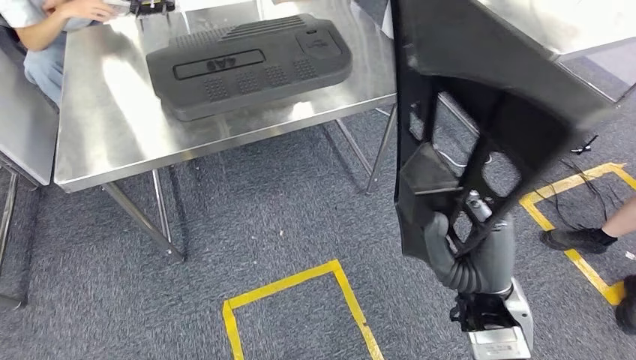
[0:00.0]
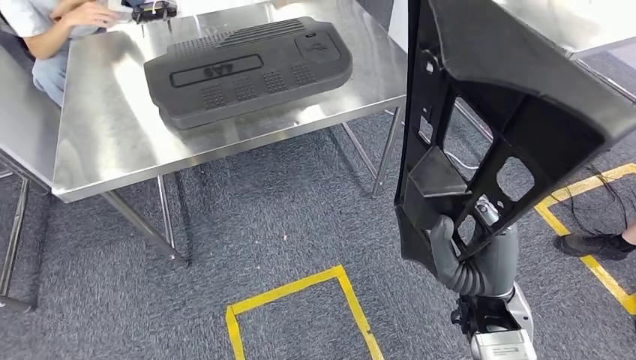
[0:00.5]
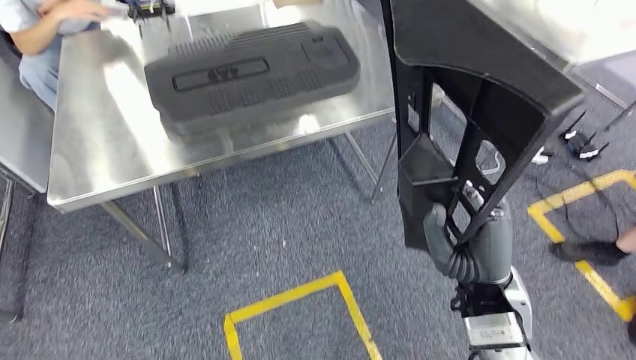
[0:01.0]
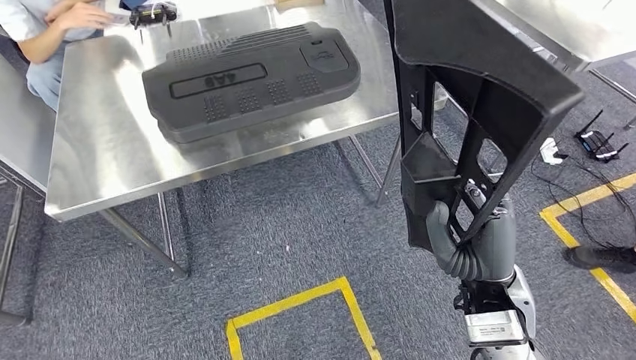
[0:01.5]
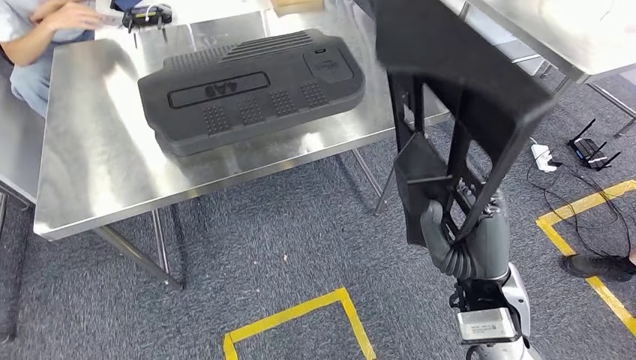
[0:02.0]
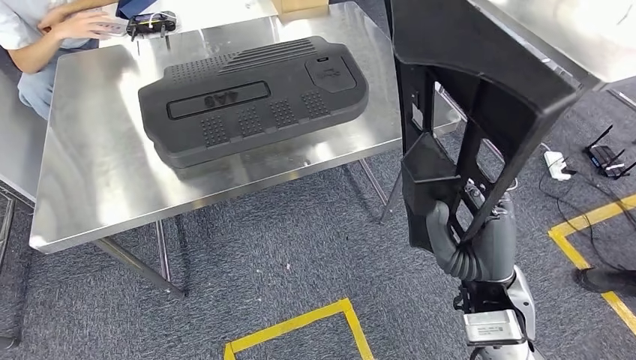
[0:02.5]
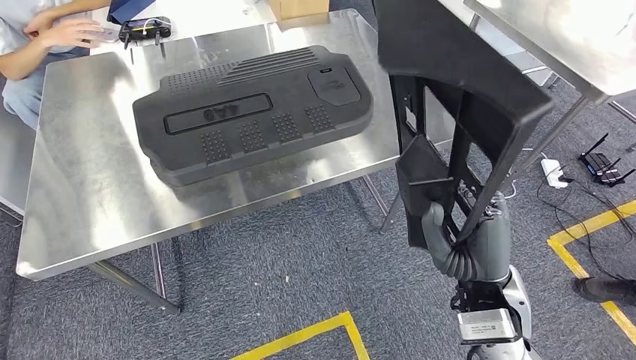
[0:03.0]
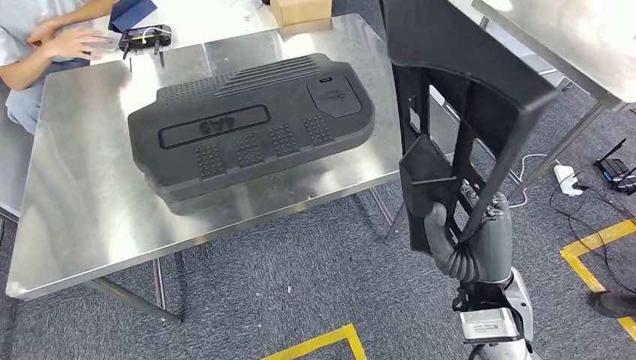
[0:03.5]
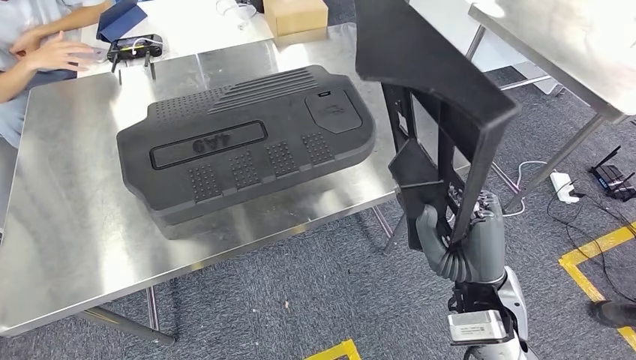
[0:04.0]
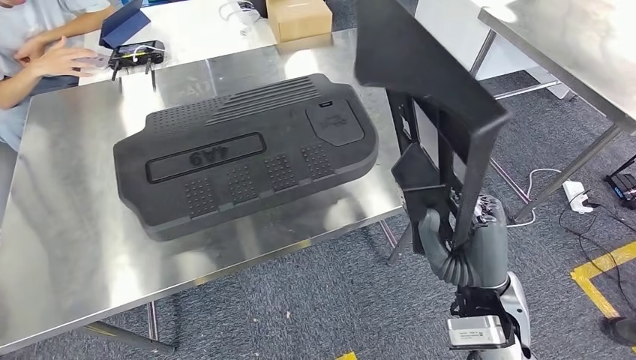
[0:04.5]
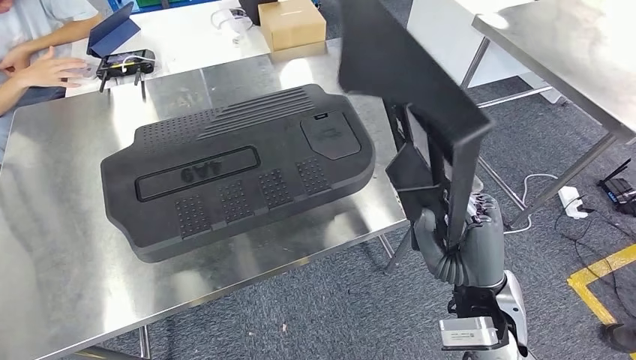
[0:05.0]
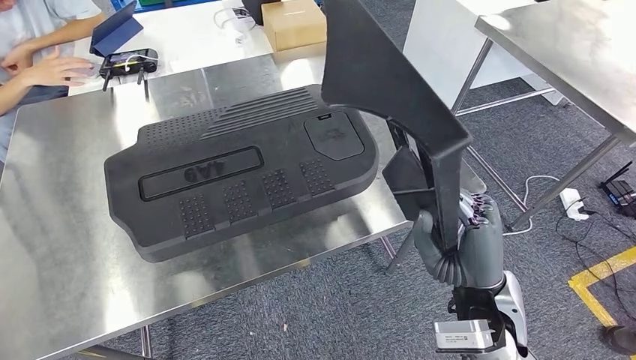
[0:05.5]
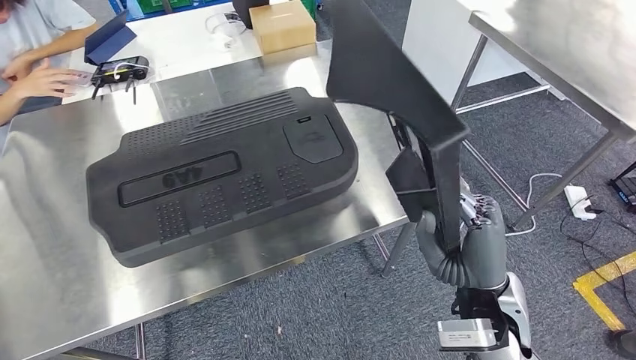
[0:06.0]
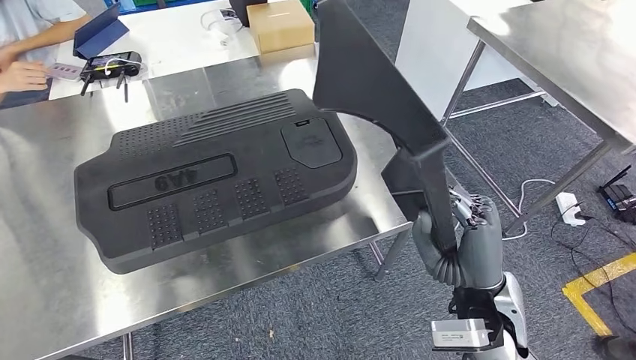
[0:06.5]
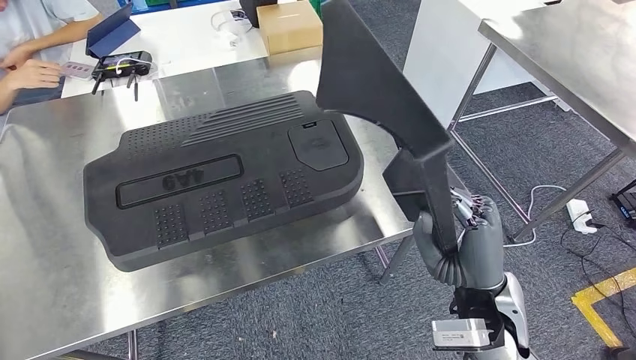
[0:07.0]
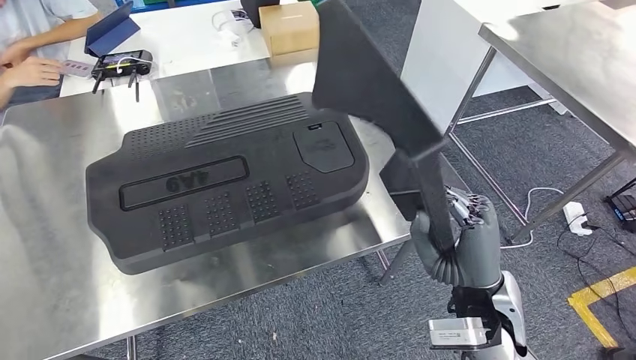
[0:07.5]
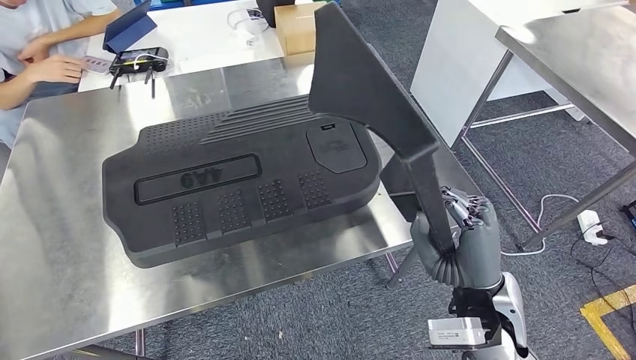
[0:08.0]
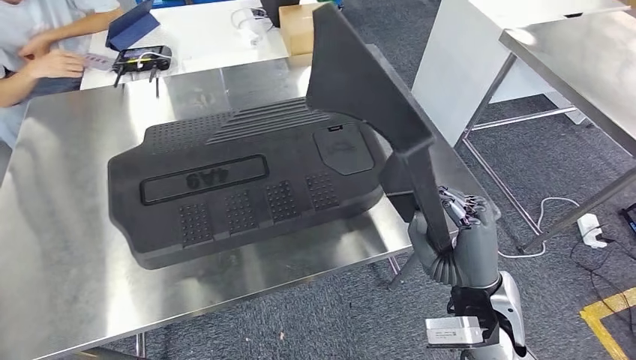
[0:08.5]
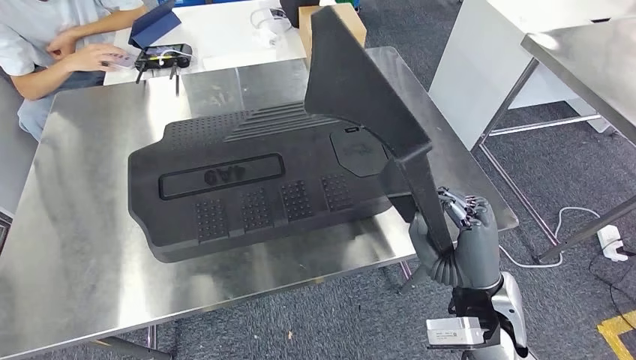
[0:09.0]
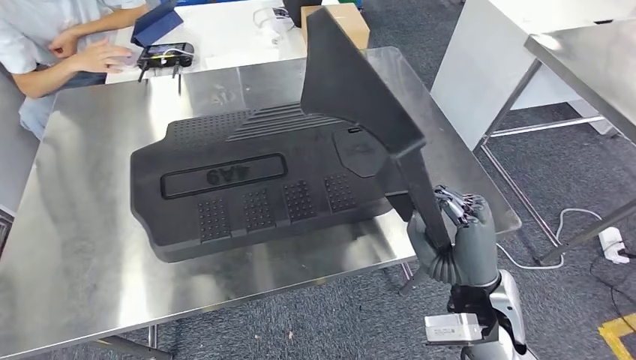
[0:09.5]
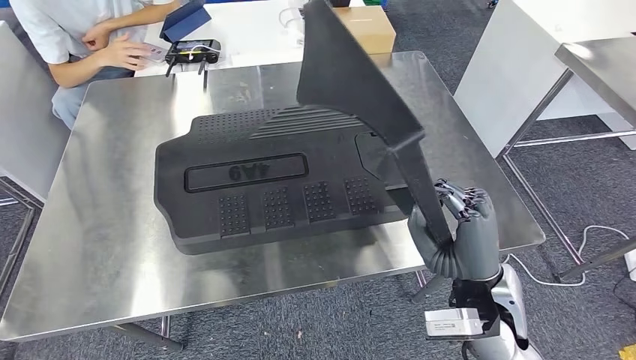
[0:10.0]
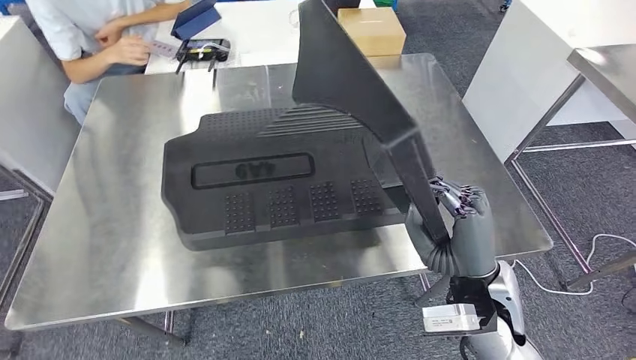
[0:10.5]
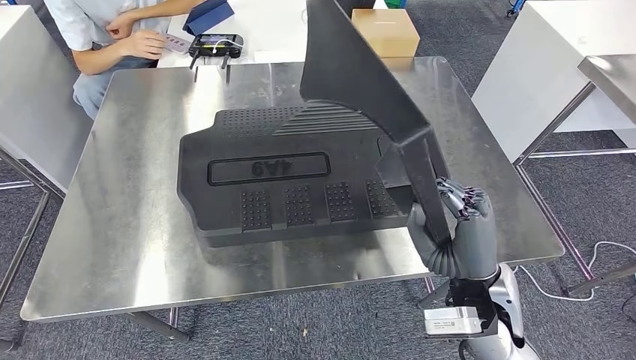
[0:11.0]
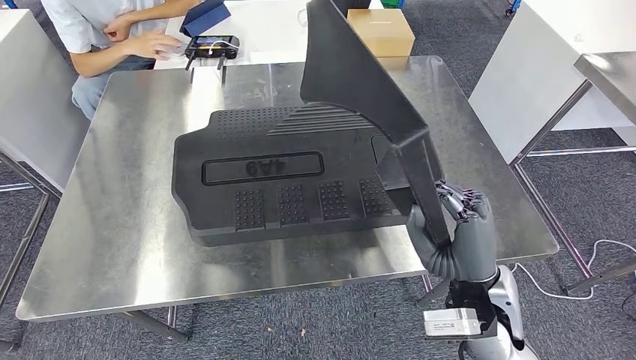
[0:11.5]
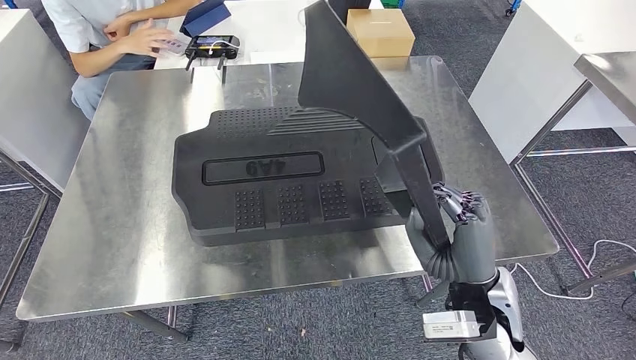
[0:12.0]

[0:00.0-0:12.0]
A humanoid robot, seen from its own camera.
Step, 0:00.0 to 0:08.5: Move the large material to the workbench.

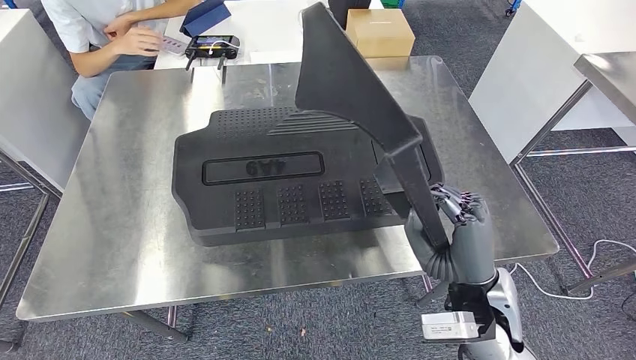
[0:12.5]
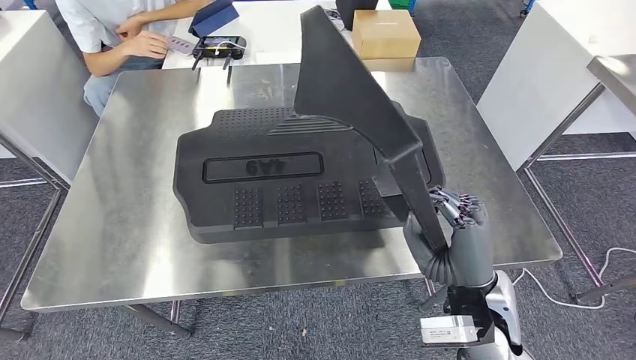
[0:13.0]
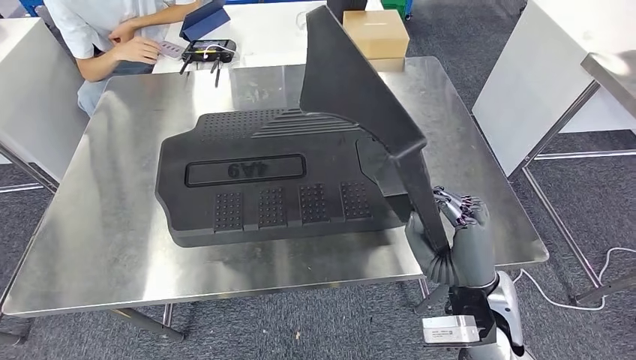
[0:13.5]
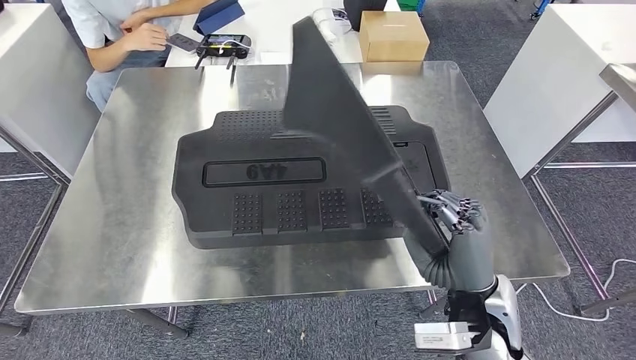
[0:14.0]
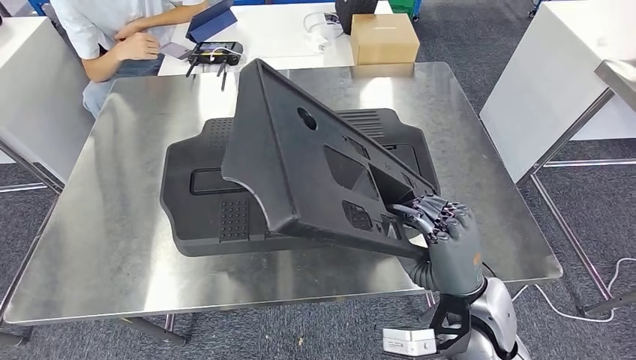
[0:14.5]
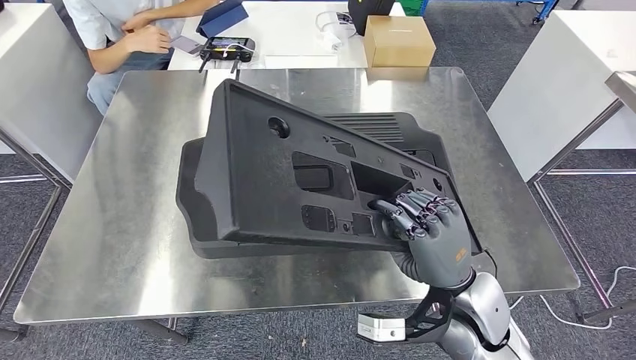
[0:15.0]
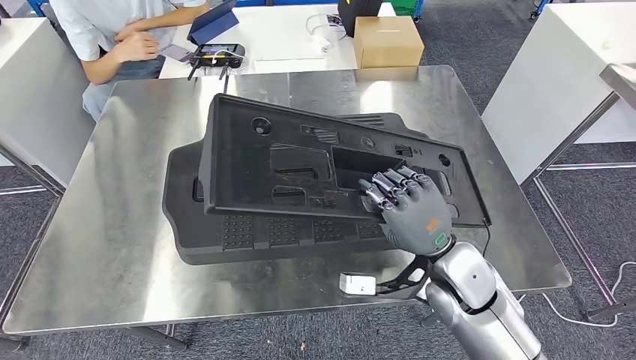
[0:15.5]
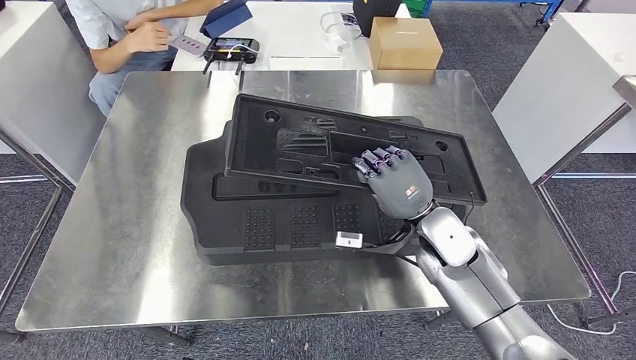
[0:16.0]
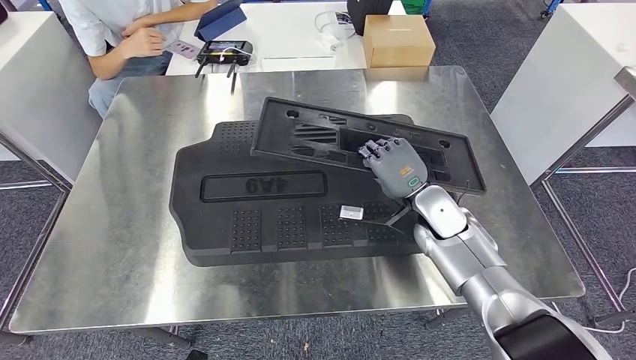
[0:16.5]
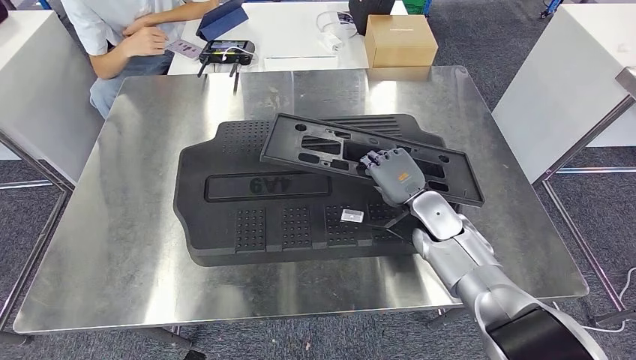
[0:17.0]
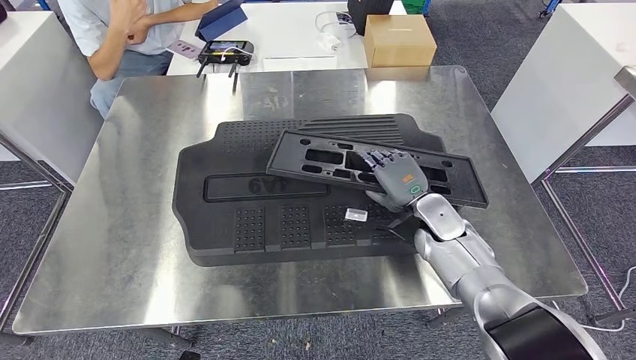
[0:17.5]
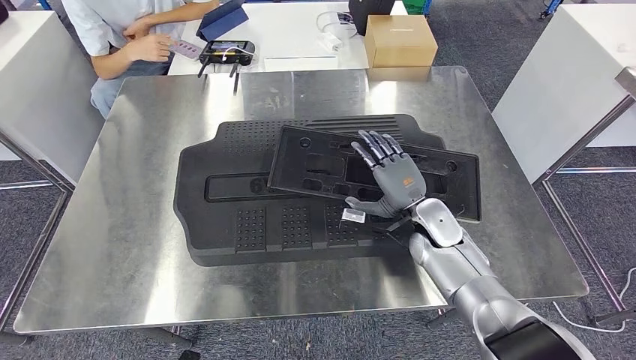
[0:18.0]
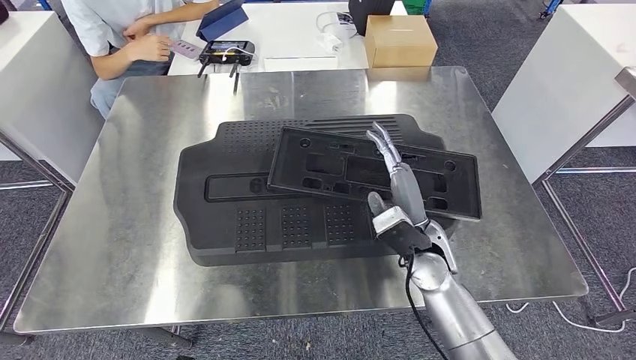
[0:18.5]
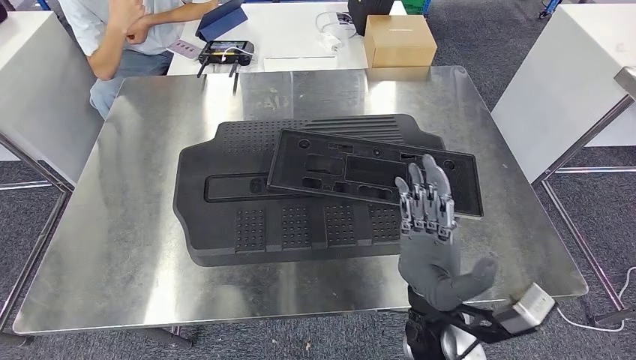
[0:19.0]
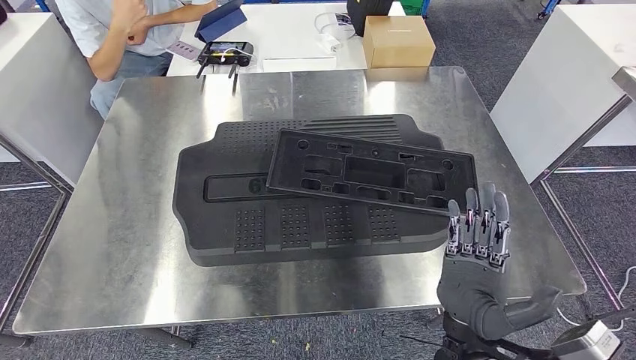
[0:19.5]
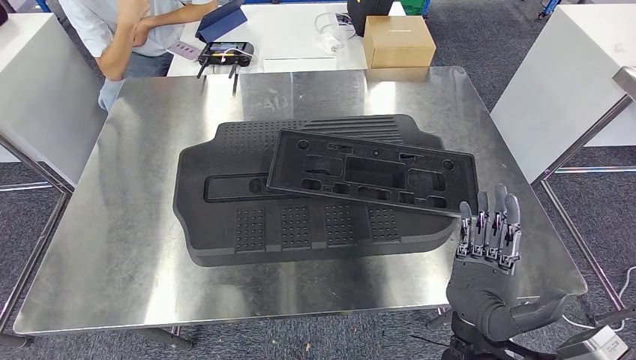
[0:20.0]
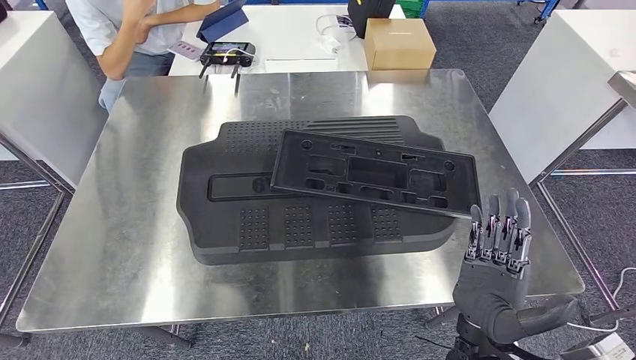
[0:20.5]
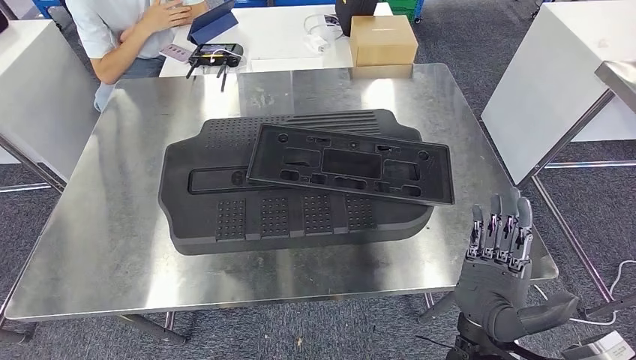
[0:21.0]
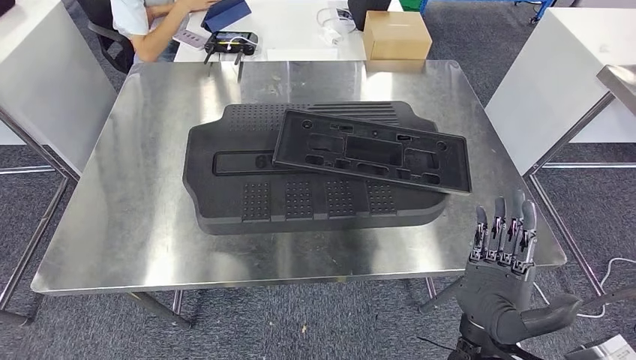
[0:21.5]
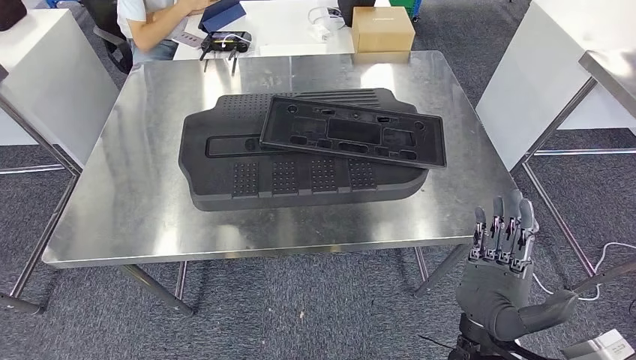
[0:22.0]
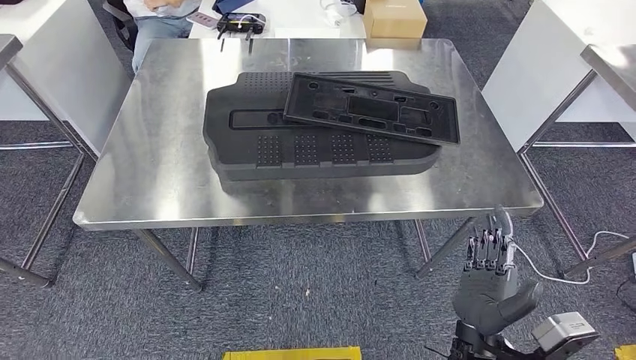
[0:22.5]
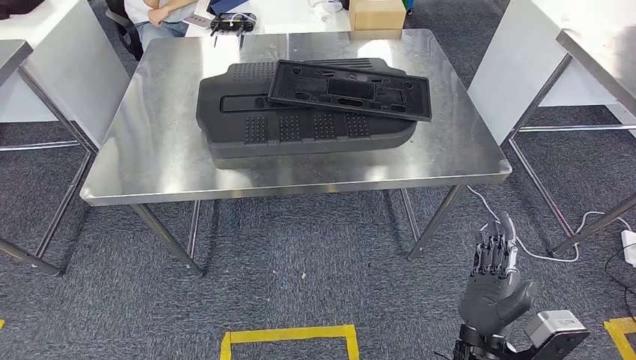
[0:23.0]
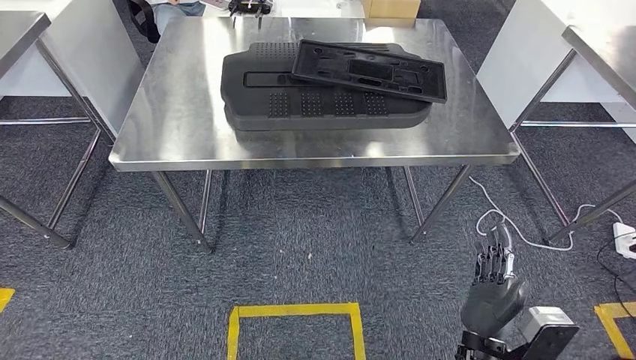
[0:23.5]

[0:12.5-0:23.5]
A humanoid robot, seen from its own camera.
Step, 0:12.5 to 0:22.0: Insert the large material into the corresponding slot on the workbench.
0:18.0 to 0:20.0: The right hand shifts roughly 20 cm backward.
